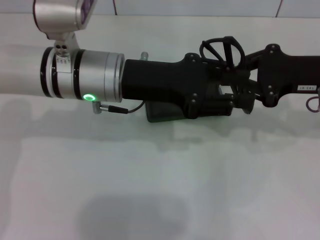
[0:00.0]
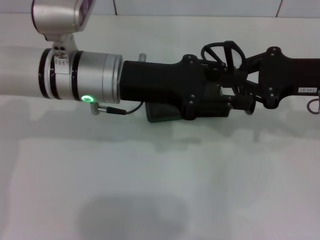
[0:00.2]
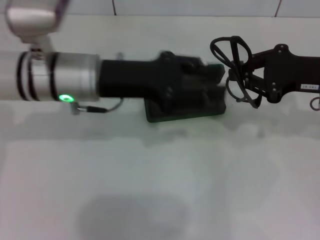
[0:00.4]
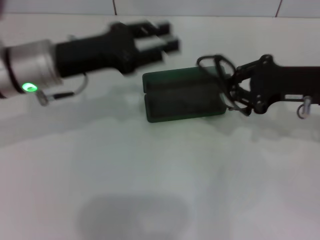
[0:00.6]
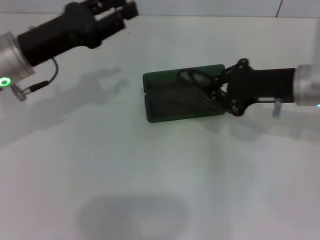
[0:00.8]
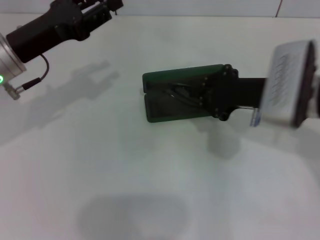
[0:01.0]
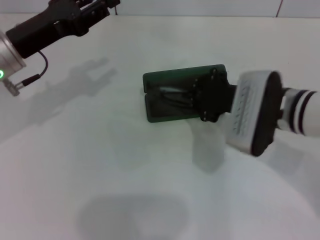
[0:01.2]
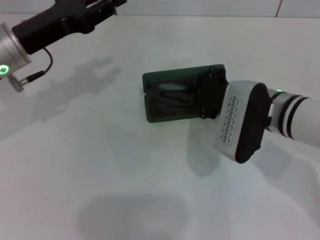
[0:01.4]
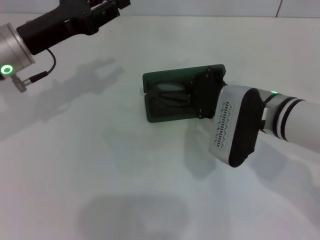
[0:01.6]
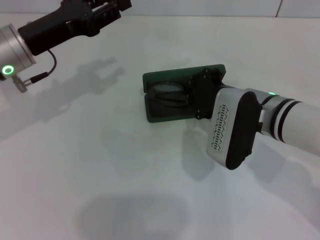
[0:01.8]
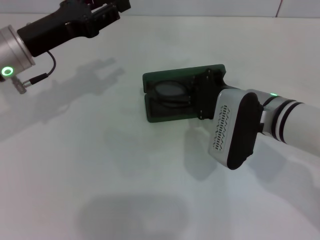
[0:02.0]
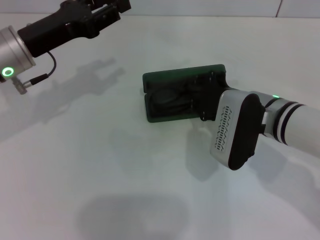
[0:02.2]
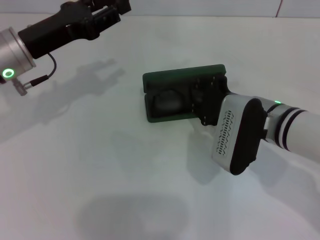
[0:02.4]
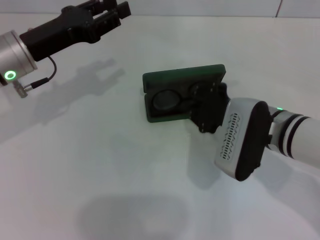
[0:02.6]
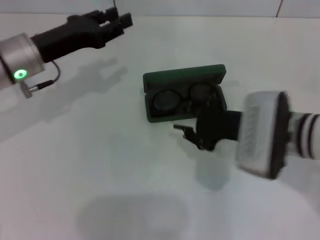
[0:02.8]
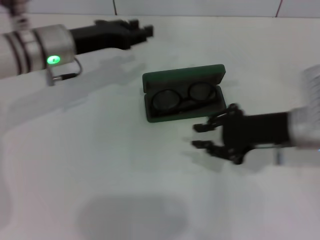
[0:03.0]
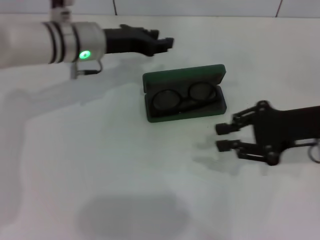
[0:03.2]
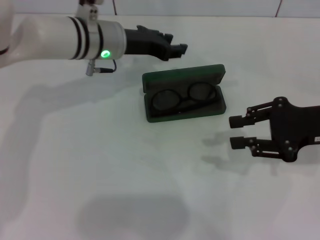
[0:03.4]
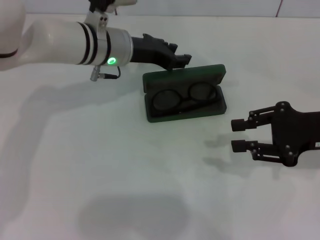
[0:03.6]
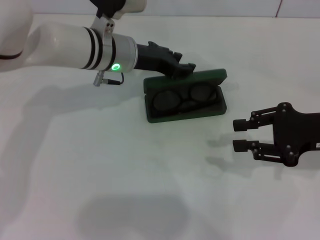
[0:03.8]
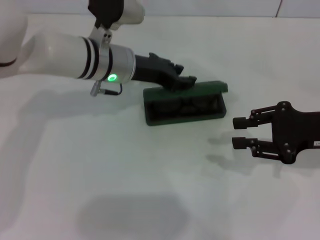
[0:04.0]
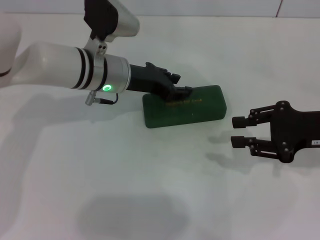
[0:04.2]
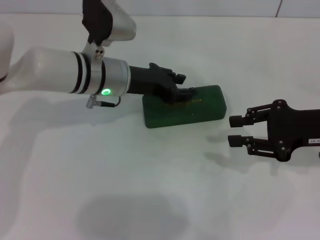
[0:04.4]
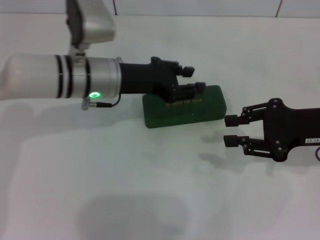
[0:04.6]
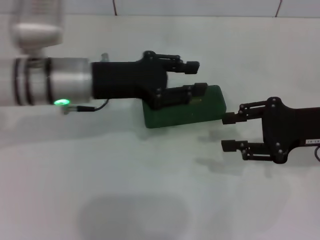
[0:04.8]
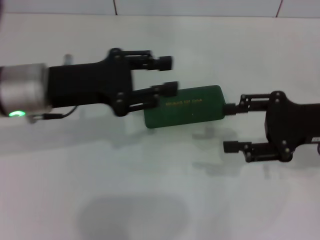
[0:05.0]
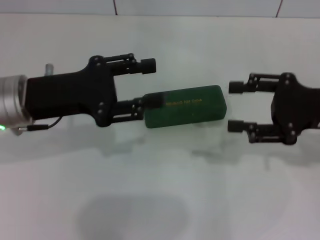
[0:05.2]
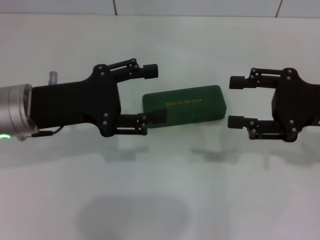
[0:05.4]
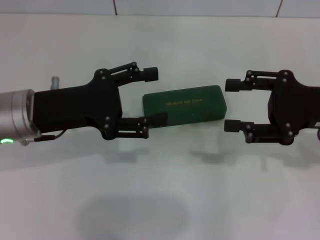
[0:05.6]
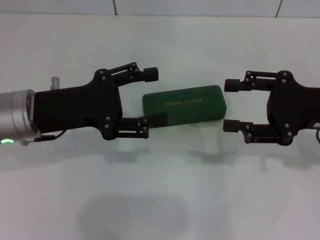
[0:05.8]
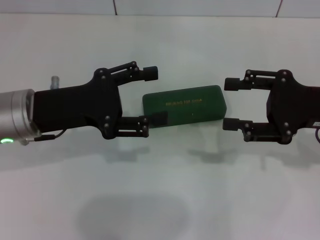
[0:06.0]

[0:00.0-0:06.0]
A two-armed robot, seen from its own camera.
Step, 0:00.2 to 0:02.4: Put the glasses into the case with your right hand.
Step, 0:02.8 to 0:04.2: Close the glasses case with your left hand.
0:00.0 to 0:01.6: The left gripper moves to the left, roughly 10 cm; the right gripper heads to the left and downward, covering approximately 15 cm.
0:01.6 to 0:03.0: The right gripper moves to the right, about 5 cm, while the left gripper shifts by roughly 5 cm.
0:03.0 to 0:04.4: The two grippers go about 10 cm to the right.
0:04.4 to 0:06.0: The right gripper opens. The left gripper shifts some 15 cm backward and to the left, and opens.

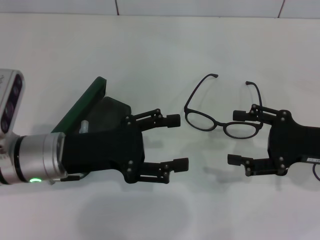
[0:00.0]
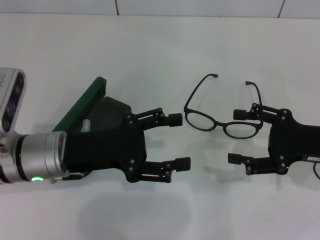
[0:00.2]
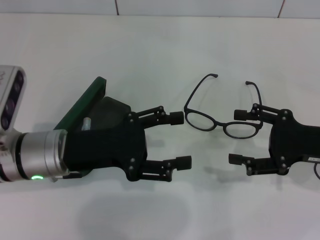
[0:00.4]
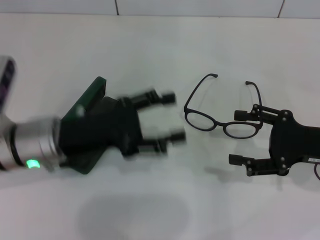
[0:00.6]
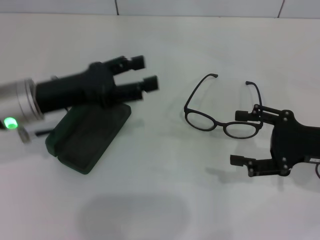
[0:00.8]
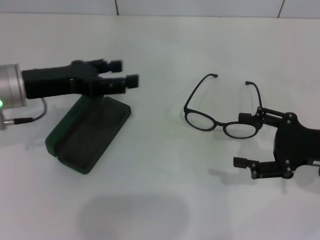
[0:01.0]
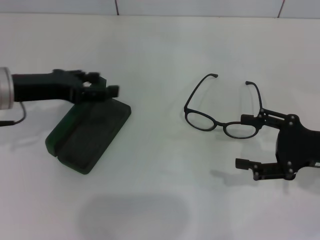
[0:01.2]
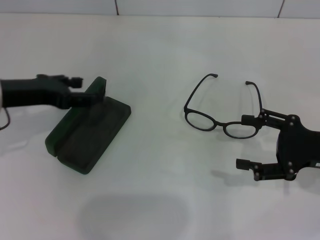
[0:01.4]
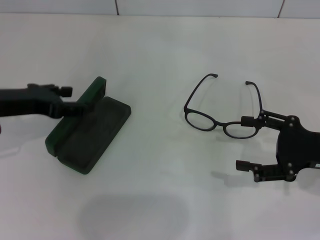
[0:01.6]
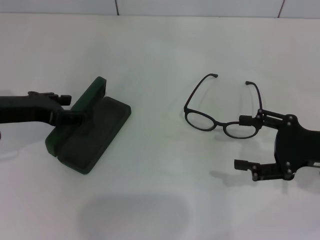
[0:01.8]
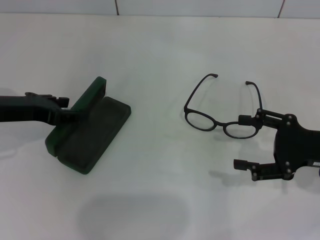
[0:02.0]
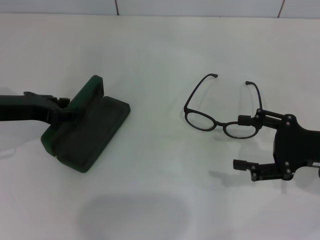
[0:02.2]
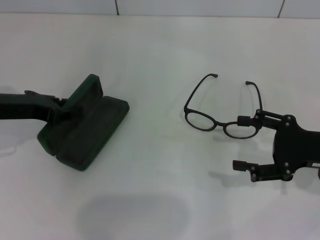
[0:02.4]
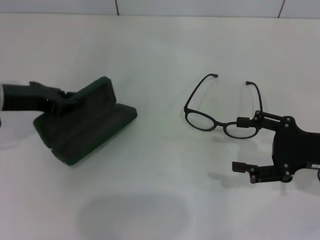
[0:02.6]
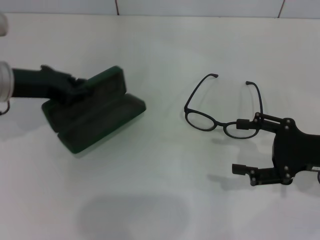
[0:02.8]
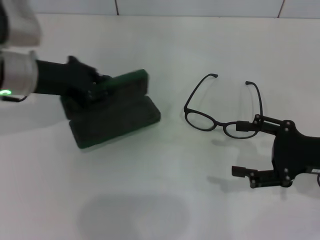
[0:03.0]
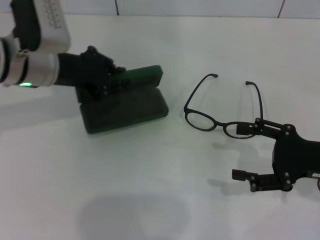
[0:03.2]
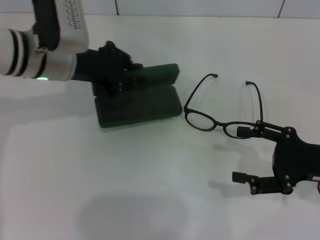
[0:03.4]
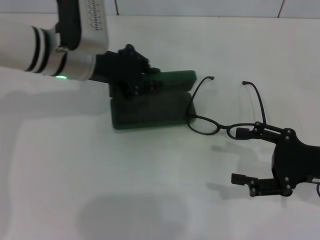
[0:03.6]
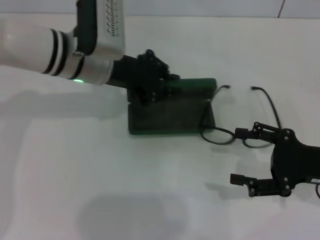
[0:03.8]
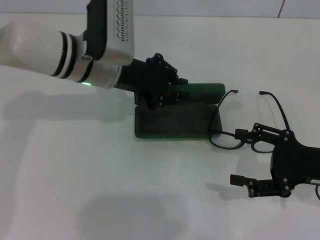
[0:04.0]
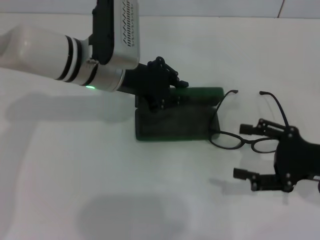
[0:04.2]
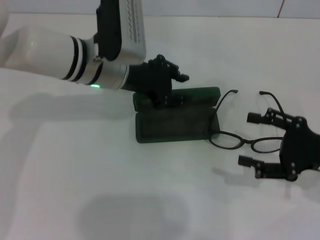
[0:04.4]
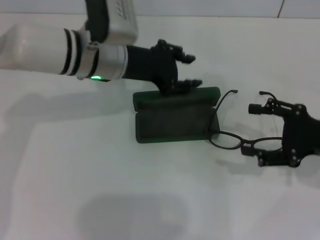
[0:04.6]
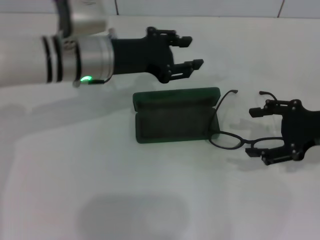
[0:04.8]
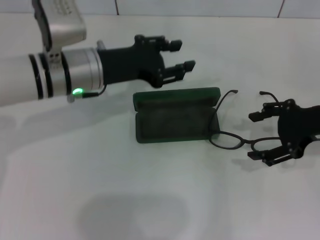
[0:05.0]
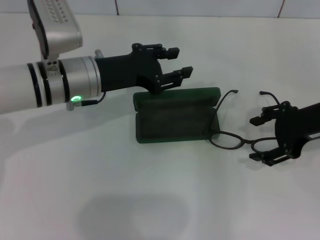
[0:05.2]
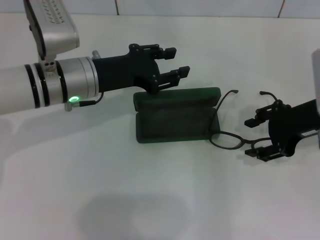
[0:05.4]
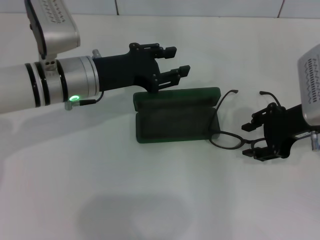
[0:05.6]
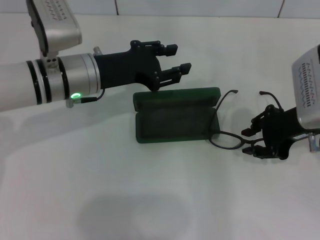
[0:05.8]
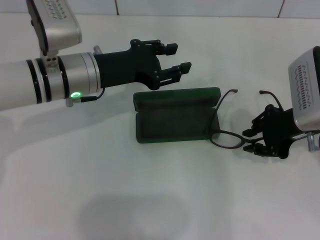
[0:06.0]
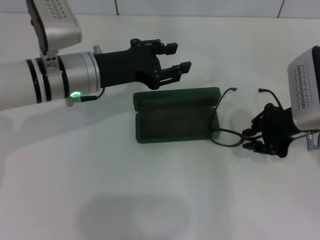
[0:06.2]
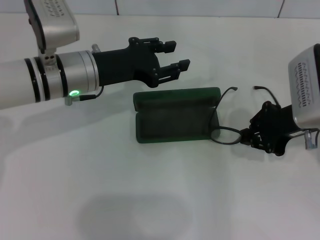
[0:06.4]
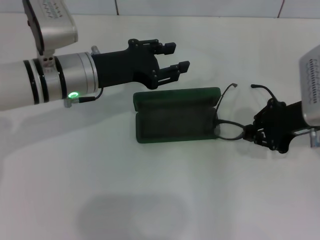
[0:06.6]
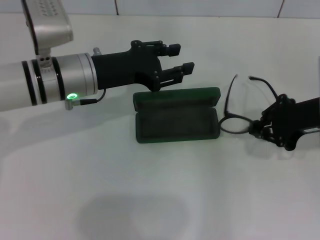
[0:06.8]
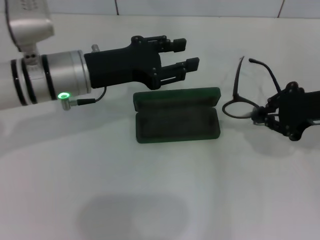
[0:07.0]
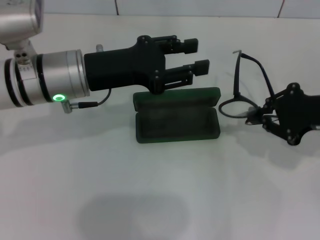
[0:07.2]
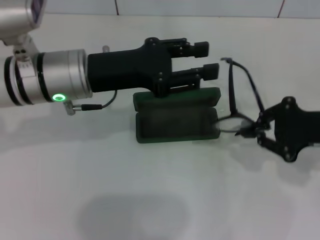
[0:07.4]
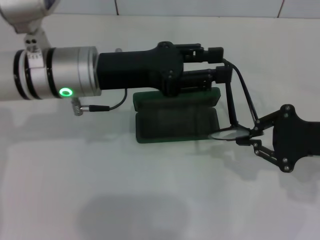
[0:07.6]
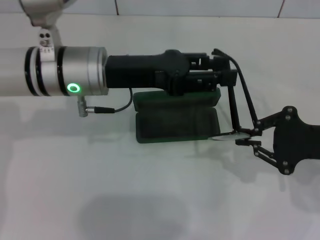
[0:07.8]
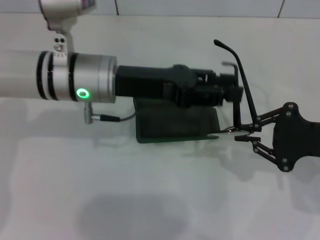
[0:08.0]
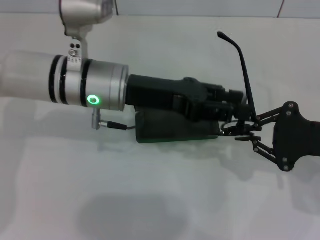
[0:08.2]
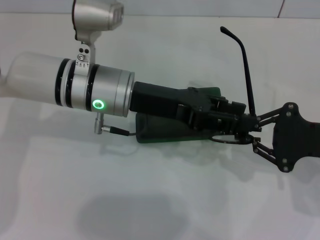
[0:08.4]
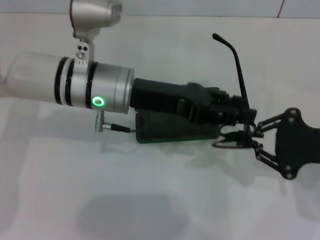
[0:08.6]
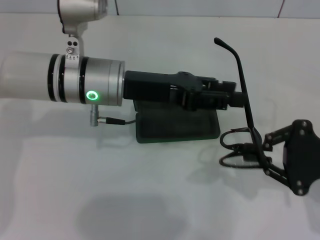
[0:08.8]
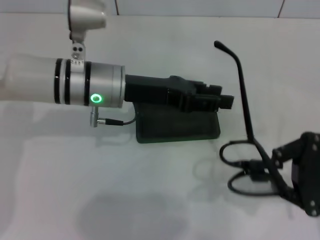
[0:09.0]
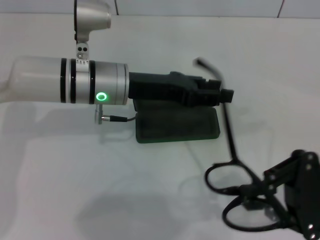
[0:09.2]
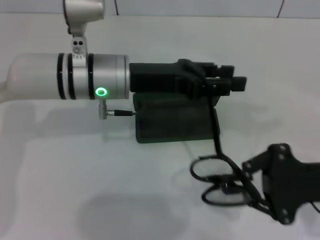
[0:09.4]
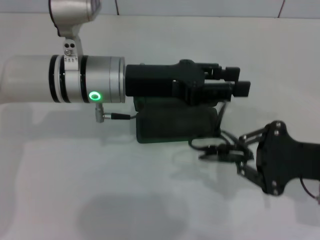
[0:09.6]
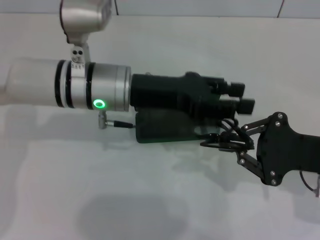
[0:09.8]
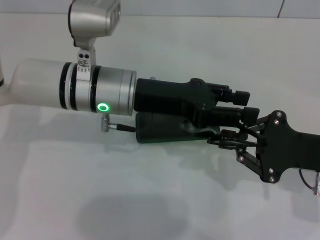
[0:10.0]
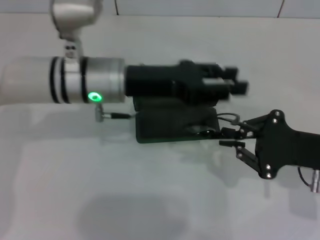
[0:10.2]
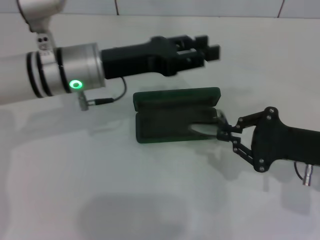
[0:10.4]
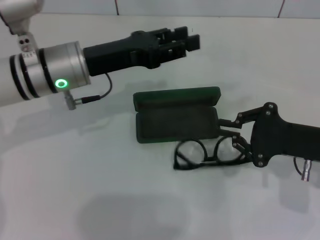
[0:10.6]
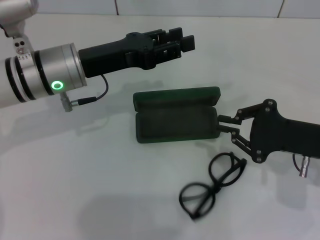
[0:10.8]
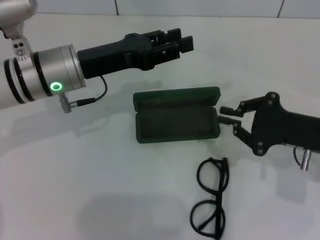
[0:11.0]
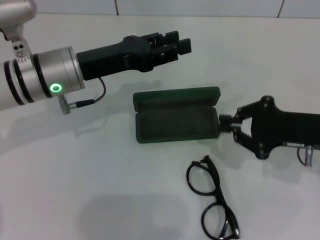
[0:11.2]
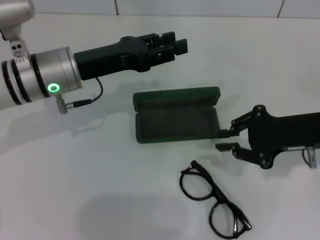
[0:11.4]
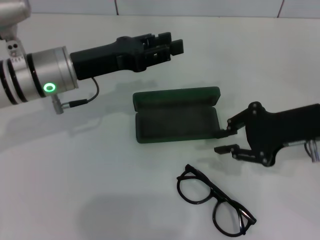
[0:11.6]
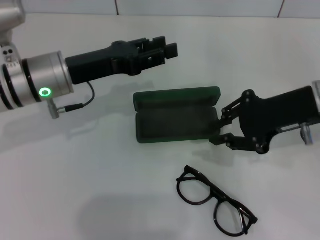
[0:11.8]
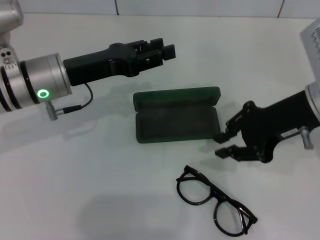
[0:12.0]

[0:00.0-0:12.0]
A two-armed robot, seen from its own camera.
Step, 0:00.0 to 0:02.4: Grab the glasses case with your left hand.
Step, 0:02.8 to 0:04.4: Place the glasses case in the center of the table with your left hand.
Step, 0:04.8 to 0:06.4: Grab the eyeglass frame with your right hand.
Step, 0:06.6 to 0:10.0: Fold the frame with your left hand.
0:00.0 to 0:01.6: The left gripper is displaced to the left by approximately 10 cm.
0:01.6 to 0:03.0: The left gripper changes place by about 5 cm, and closes up.
0:03.0 to 0:04.4: The left gripper shifts approximately 10 cm to the right.
0:04.4 to 0:06.0: The right gripper is displaced forward, to the left and upward by approximately 10 cm, and closes, while the left gripper shifts by approximately 5 cm.
0:06.0 to 0:07.6: The left gripper changes place by some 5 cm. Meanwhile the right gripper heads to the right and backward, covering about 10 cm, and closes.
0:09.0 to 0:10.4: The right gripper ends up some 5 cm from where it was.
0:10.4 to 0:12.0: The left gripper ends up about 5 cm from where it was. Meanwhile the right gripper is displaced upward, forward and to the left by approximately 10 cm.

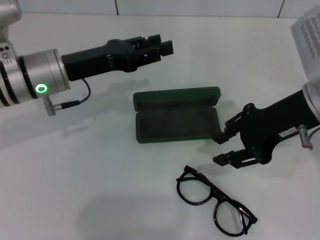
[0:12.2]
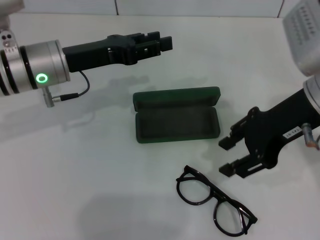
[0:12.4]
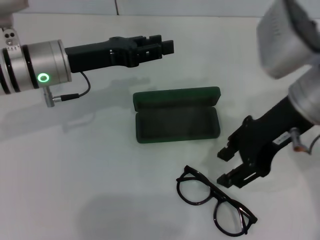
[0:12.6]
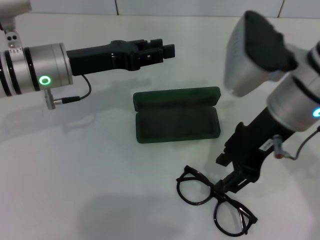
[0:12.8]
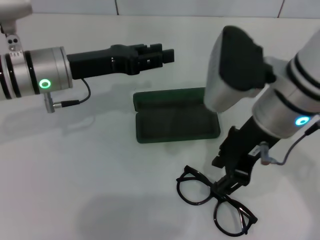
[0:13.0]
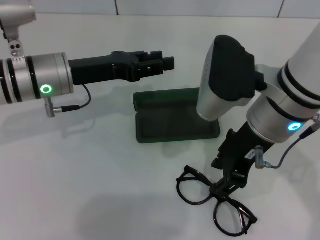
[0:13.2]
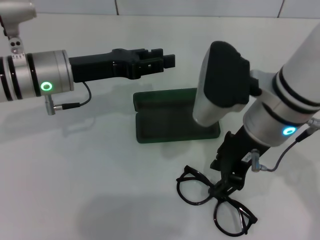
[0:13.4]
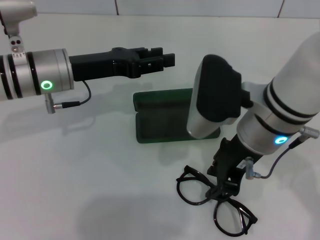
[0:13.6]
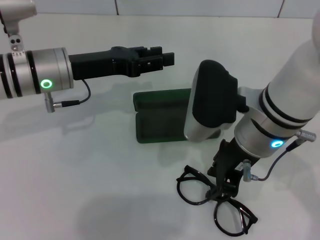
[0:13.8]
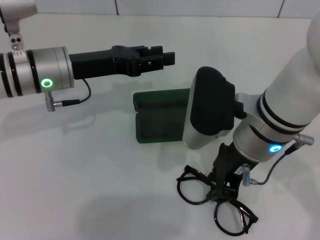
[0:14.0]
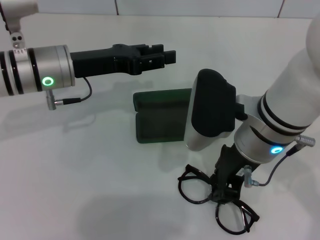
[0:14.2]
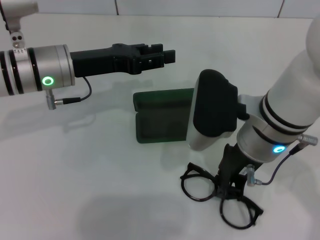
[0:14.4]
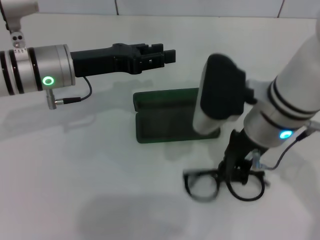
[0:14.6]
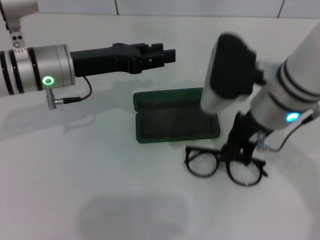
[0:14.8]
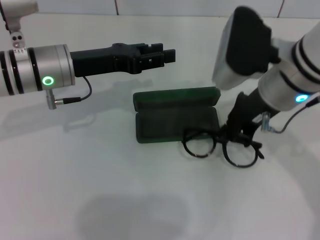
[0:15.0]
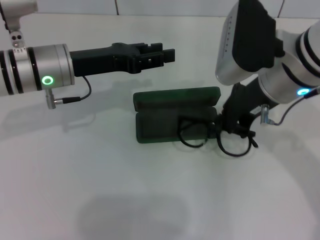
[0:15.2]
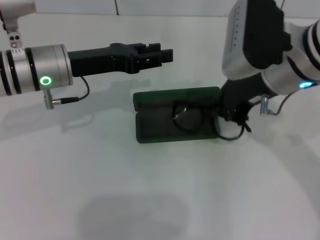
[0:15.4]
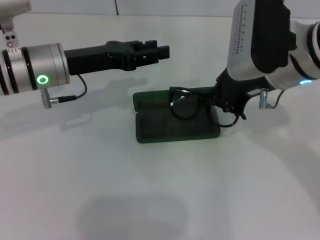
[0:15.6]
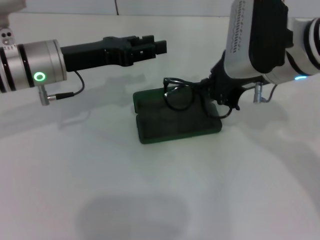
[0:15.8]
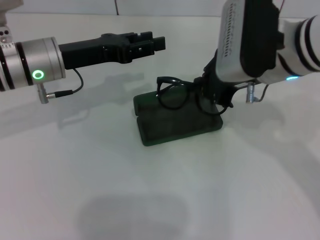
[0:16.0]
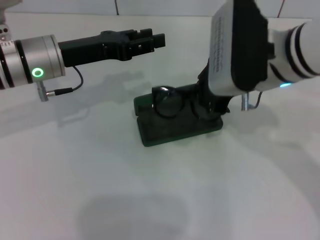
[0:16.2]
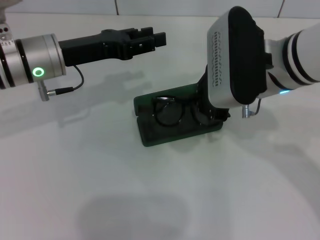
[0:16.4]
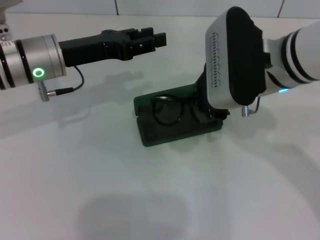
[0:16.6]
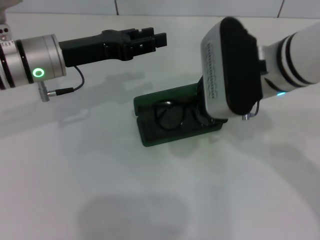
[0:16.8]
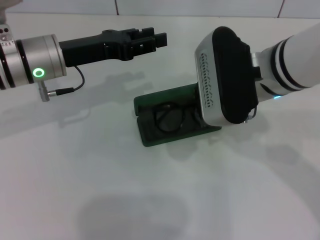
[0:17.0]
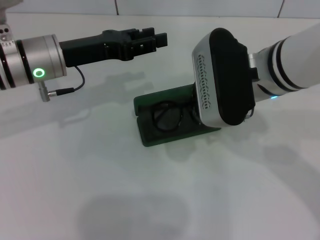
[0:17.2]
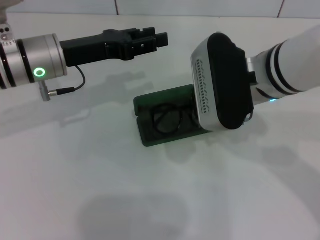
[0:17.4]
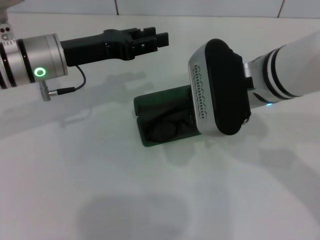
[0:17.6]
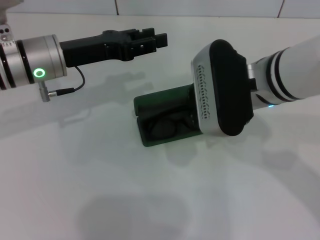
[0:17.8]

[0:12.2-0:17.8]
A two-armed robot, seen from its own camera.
0:12.2 to 0:13.6: The right gripper shifts some 10 cm to the left.
0:13.6 to 0:15.0: The right gripper ends up approximately 5 cm from where it was, and closes its fingers.
0:16.4 to 0:17.8: There are only small adjustments of the grippers.
